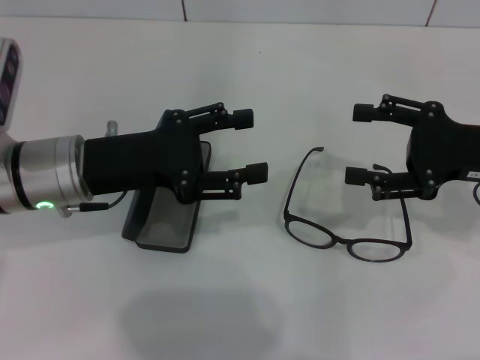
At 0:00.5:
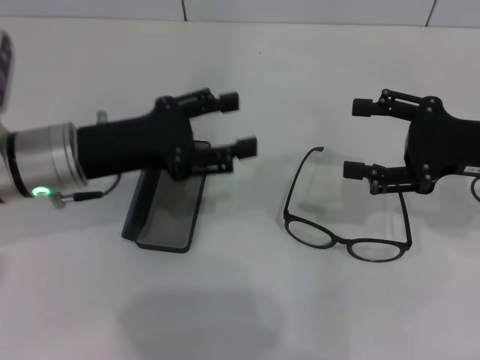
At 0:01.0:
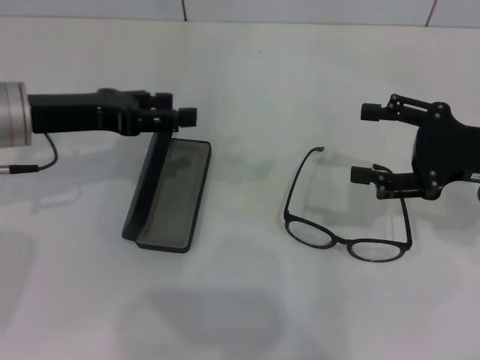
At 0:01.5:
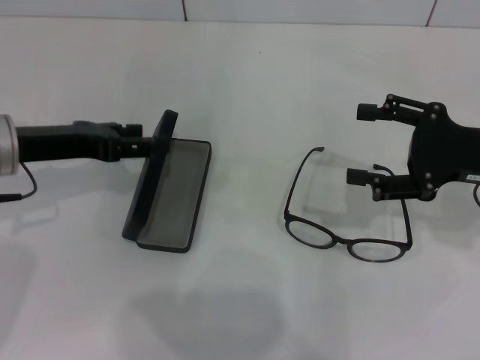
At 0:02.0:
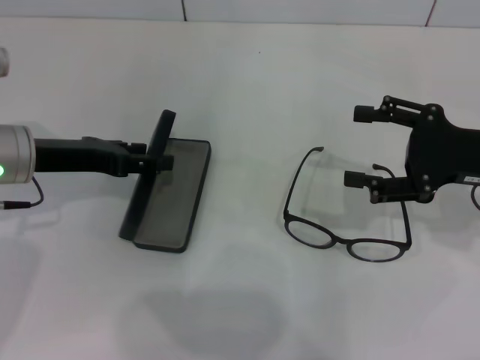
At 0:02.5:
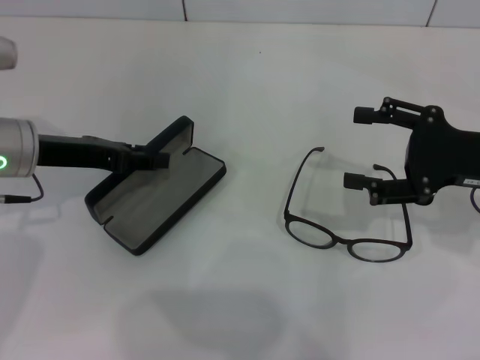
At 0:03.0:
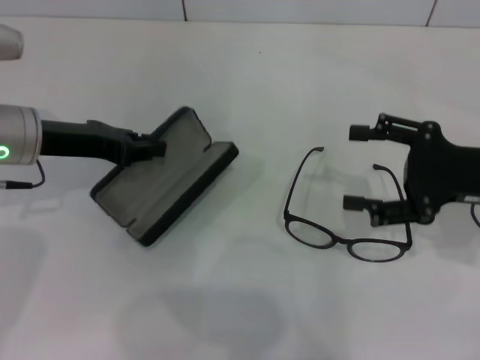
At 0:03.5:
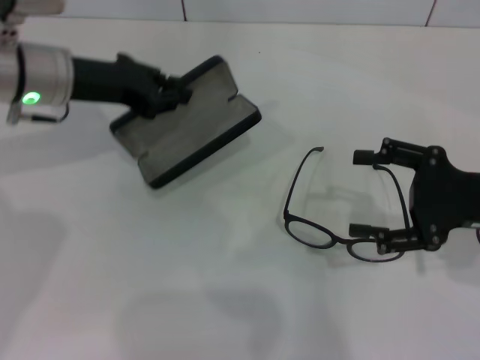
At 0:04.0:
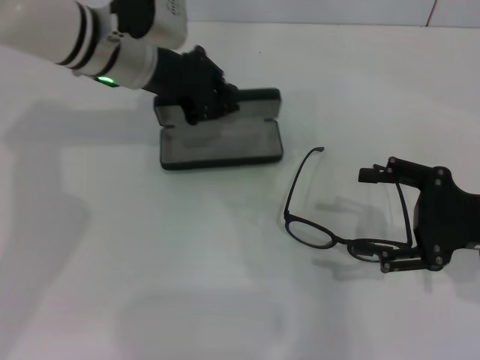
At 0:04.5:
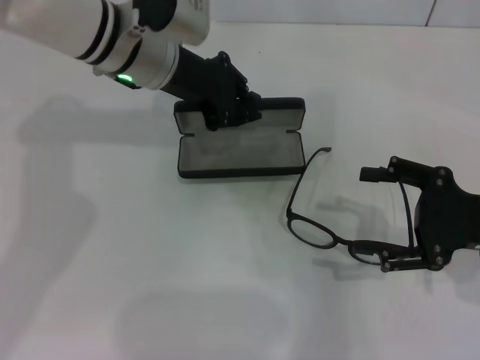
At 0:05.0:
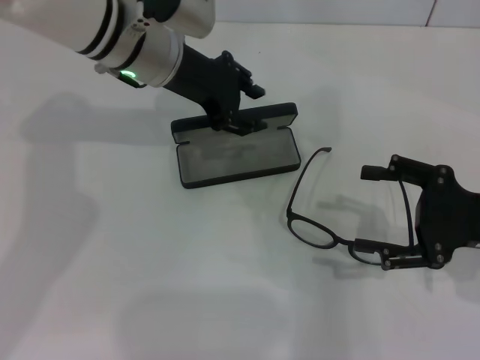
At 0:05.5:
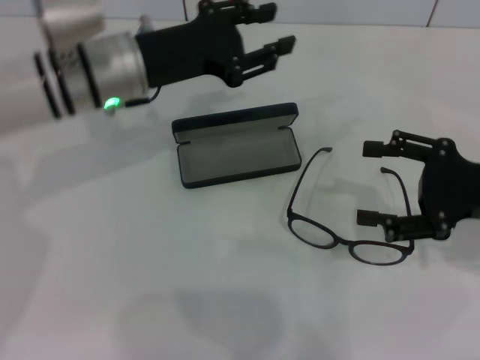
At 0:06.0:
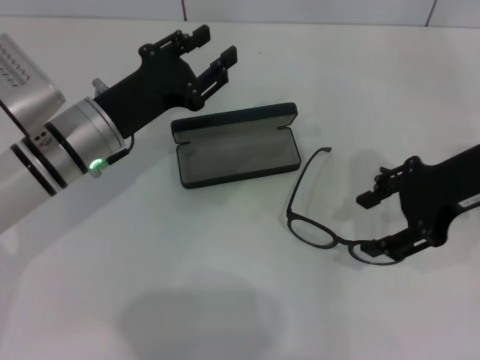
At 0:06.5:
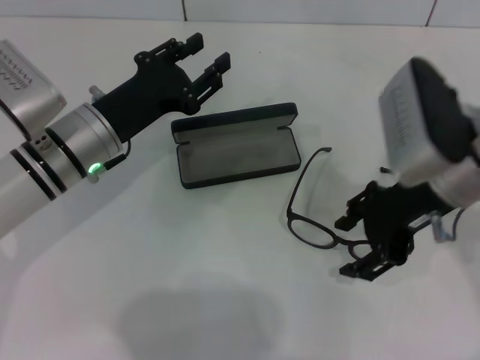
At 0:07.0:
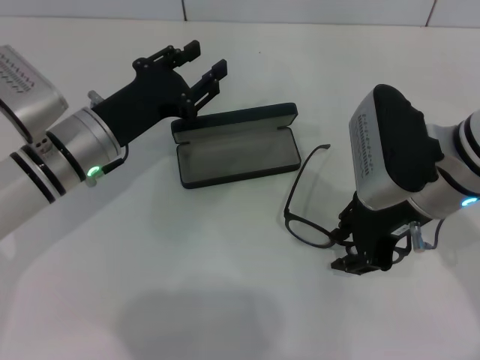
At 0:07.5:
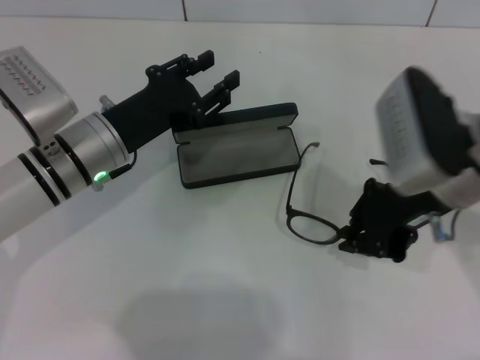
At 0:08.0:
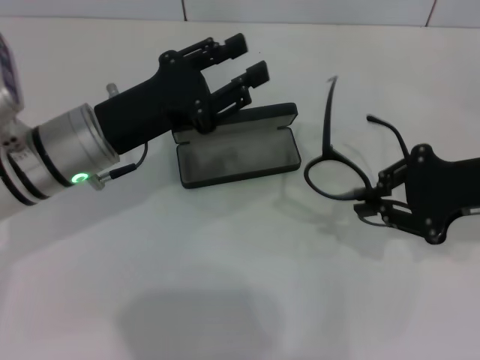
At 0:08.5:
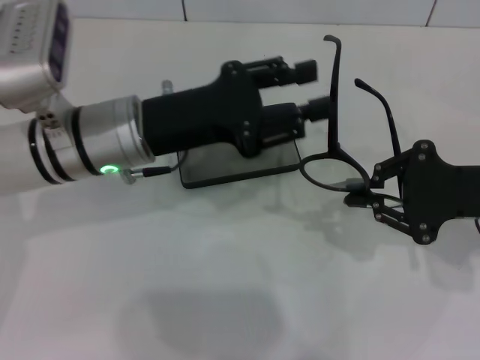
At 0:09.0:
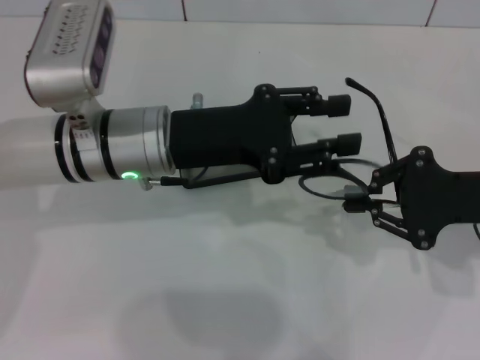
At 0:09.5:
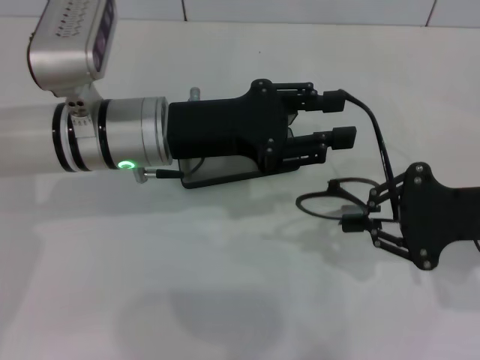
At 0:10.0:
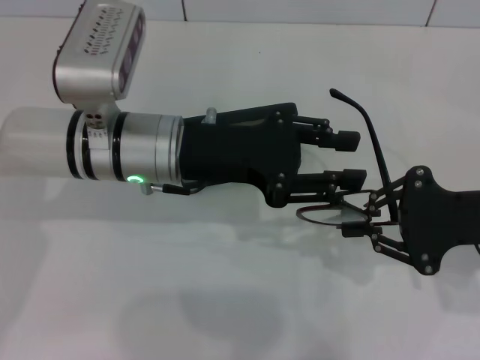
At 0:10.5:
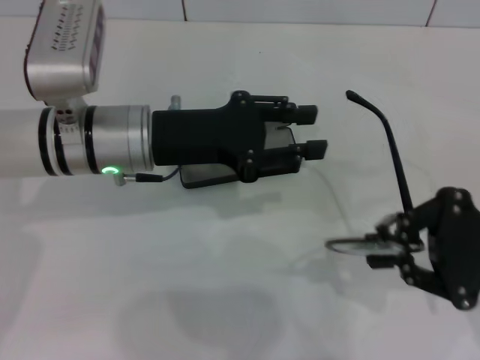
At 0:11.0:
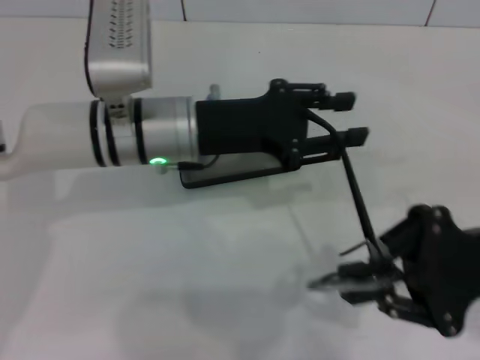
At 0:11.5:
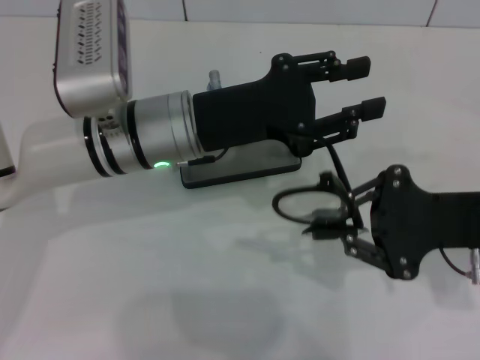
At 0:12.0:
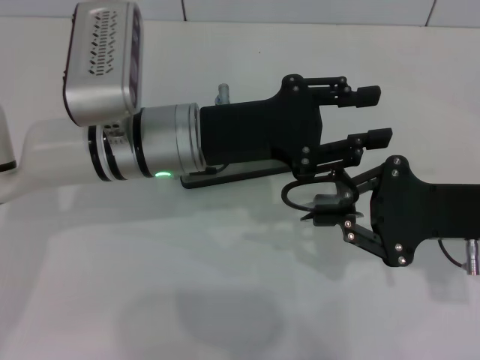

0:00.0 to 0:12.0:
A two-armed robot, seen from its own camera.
Step, 0:00.0 to 0:02.0: Grab the glasses case with your left hand.
Step, 0:02.5 to 0:04.5: Place the glasses case in the center of the table with your left hand.
Step, 0:05.0 to 0:07.0: Grab the eyeglass frame with your right hand.
Step, 0:07.5 to 0:11.5: Fold the frame with your left hand.
0:00.0 to 0:02.0: The left gripper is displaced to the left by about 5 cm.
0:02.0 to 0:04.0: The left gripper heads to the right and forward, covering approximately 15 cm, and closes up. The right gripper shifts by about 5 cm.
0:04.0 to 0:06.0: The right gripper is displaced upward and to the left by approximately 10 cm. The left gripper travels backward and downward by roughly 10 cm, and opens its fingers.
0:06.0 to 0:08.0: The right gripper travels to the left and back again, roughly 10 cm each way, and closes up.
0:08.0 to 0:10.0: The left gripper moves to the right, approximately 5 cm.

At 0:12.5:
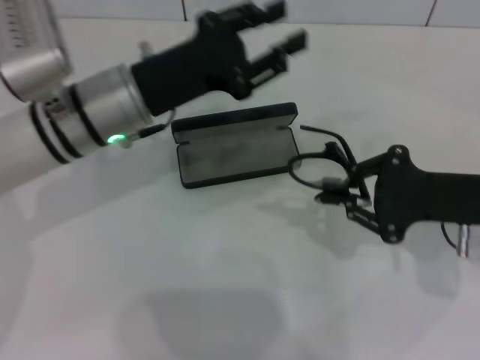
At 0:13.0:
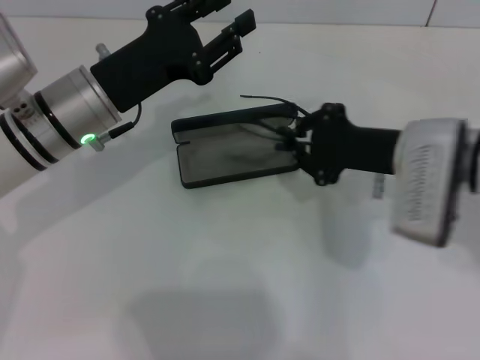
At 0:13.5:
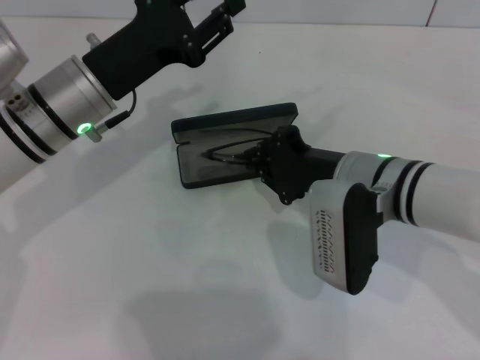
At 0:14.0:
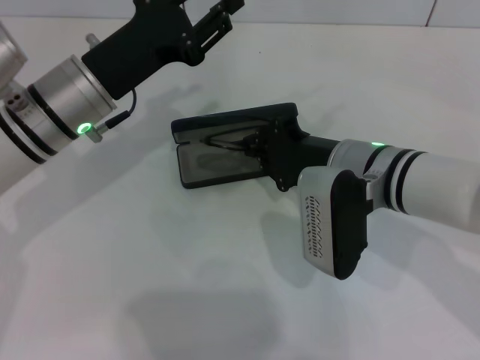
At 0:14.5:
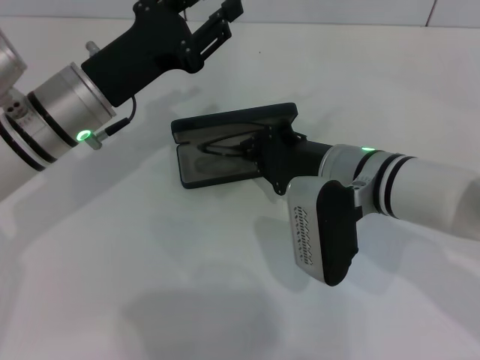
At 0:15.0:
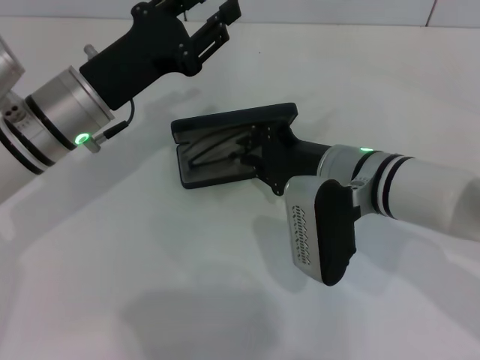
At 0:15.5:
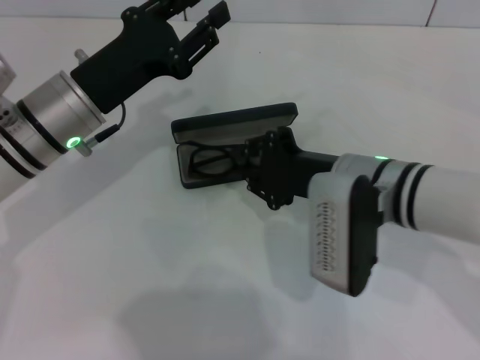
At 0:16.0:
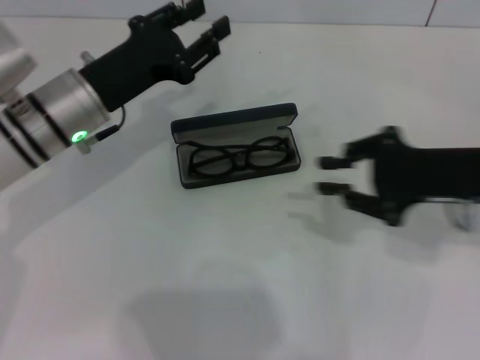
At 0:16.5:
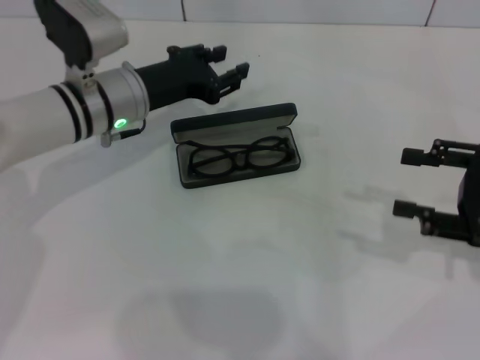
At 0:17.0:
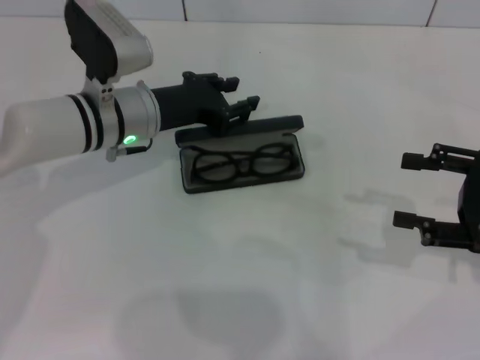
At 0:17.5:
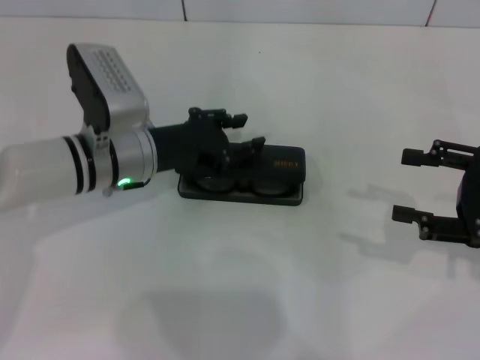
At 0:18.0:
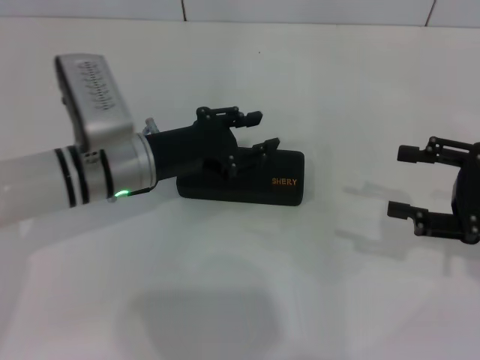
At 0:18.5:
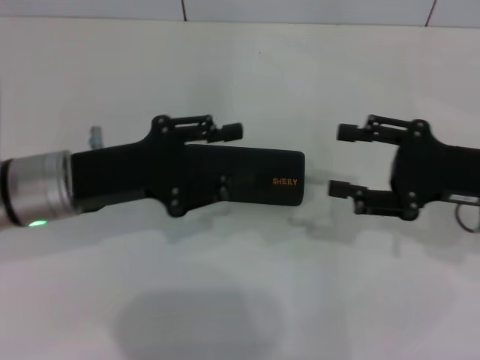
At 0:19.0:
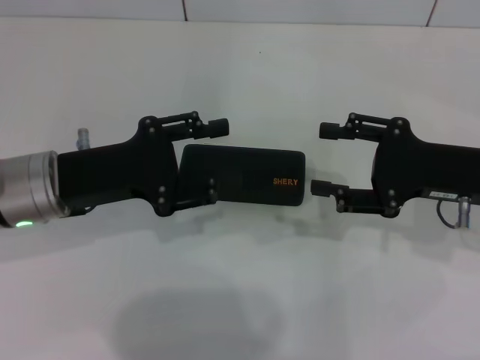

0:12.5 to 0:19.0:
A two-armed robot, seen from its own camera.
Step, 0:12.5 to 0:15.5: Put the glasses into the case with your right hand.
Step, 0:16.0 to 0:17.5: Close the glasses case with your left hand.
0:12.5 to 0:14.5: The right gripper shifts about 15 cm to the left.
0:14.5 to 0:17.0: The right gripper shifts some 20 cm to the right, and opens up. The left gripper ends up about 5 cm from where it was.
0:17.0 to 0:19.0: The right gripper goes about 5 cm to the left; the left gripper travels backward and to the left by approximately 10 cm.

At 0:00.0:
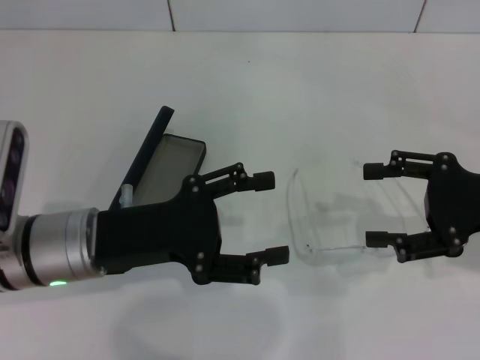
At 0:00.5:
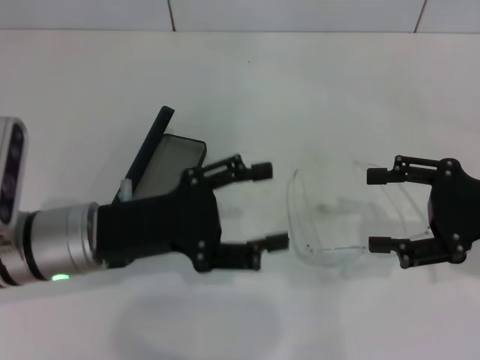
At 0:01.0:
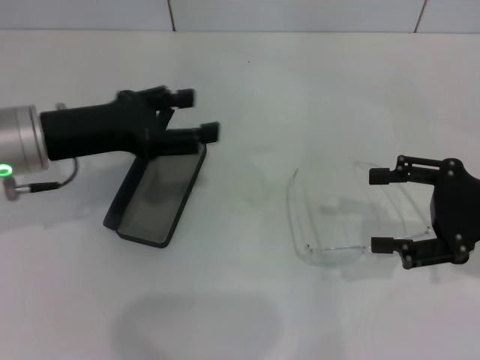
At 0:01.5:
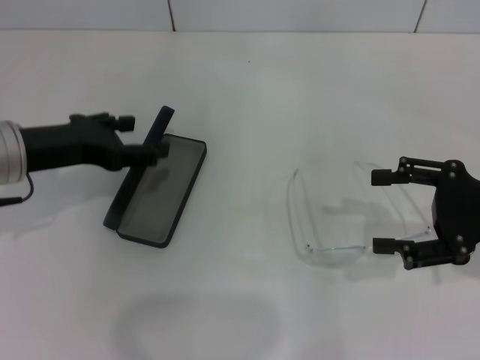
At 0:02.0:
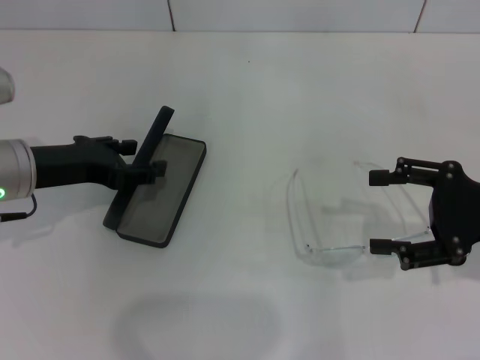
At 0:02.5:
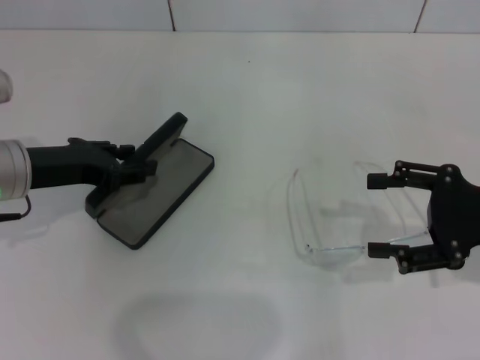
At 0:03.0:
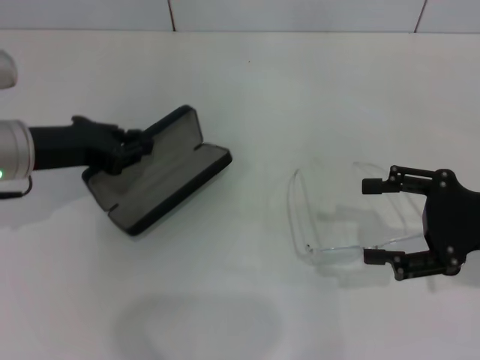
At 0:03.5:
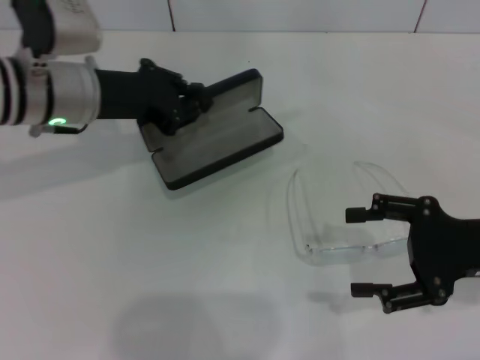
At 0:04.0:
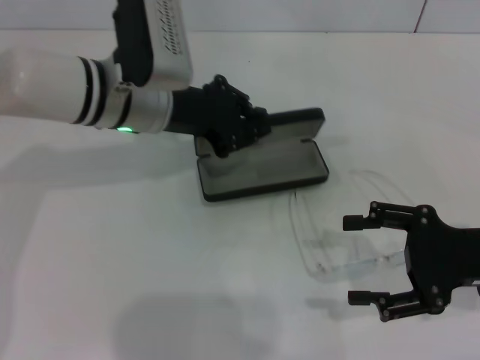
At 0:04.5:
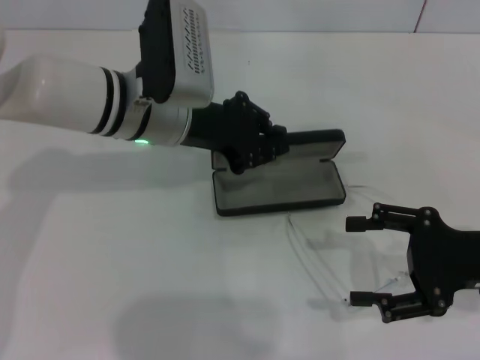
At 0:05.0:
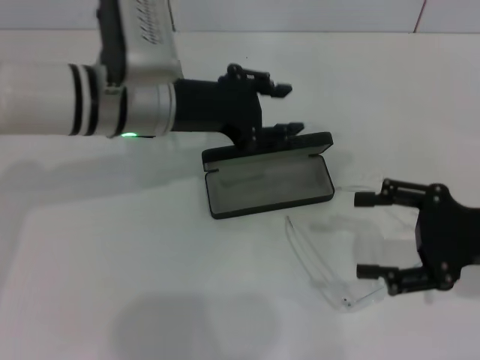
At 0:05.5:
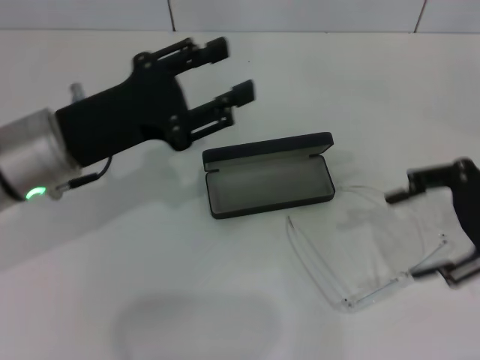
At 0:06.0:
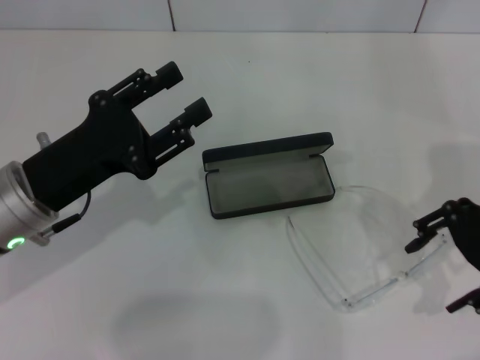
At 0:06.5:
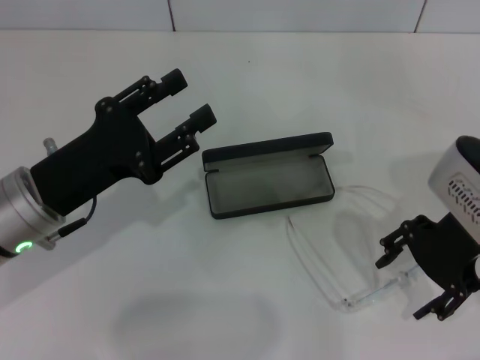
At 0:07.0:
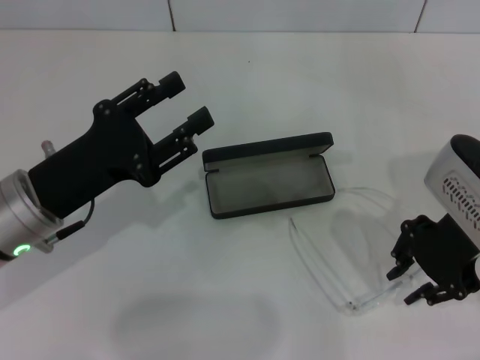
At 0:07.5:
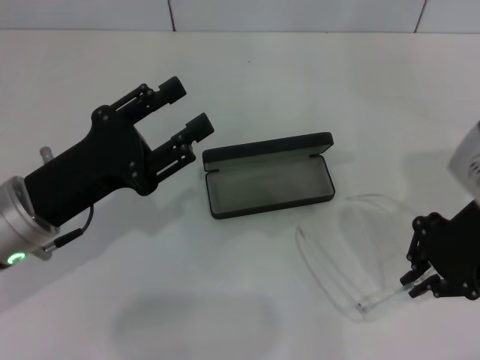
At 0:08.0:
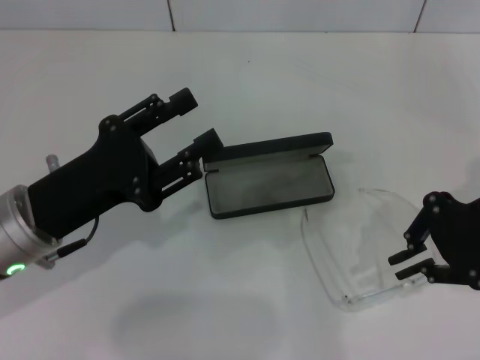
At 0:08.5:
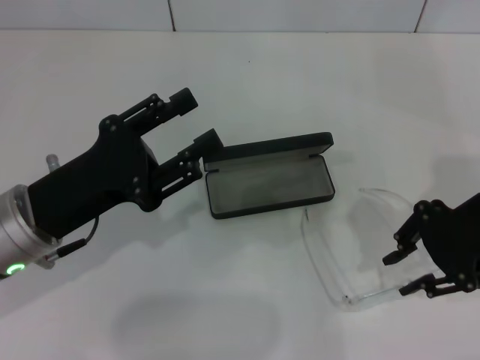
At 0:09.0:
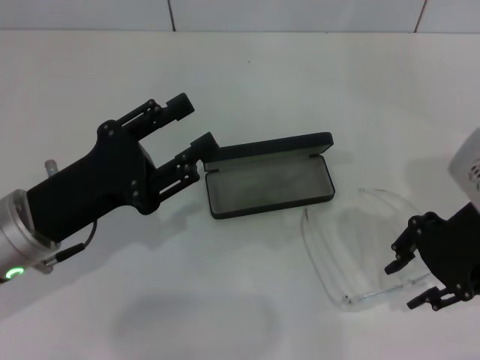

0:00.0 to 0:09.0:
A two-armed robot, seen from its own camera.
Step, 0:00.0 to 0:02.5: Grab the glasses case with your left hand.
Step, 0:03.0 to 0:04.5: Place the glasses case in the center of the table with your left hand.
0:00.0 to 0:02.0: The left gripper travels to the left and forward by some 10 cm.
0:02.0 to 0:04.5: The left gripper is displaced to the right and forward by about 15 cm, and closes up.
0:04.5 to 0:07.0: The right gripper shifts approximately 10 cm to the left, upward and forward, and closes, while the left gripper moves backward and to the left, some 15 cm, and opens its fingers.
0:07.0 to 0:09.0: The right gripper closes and opens again.
